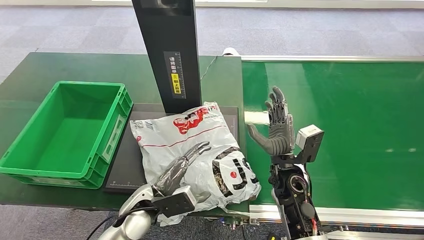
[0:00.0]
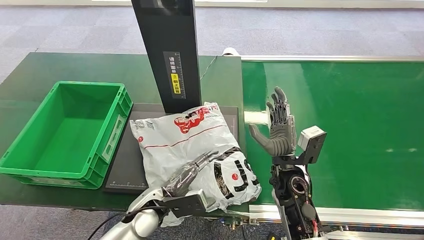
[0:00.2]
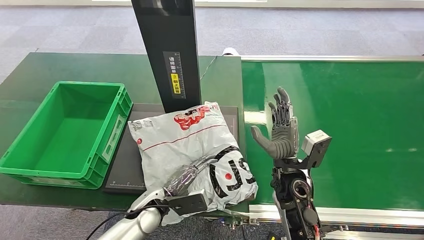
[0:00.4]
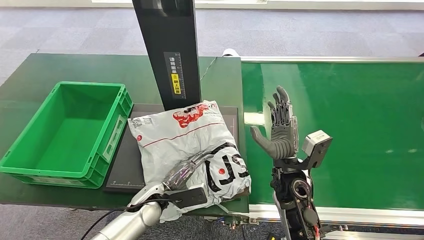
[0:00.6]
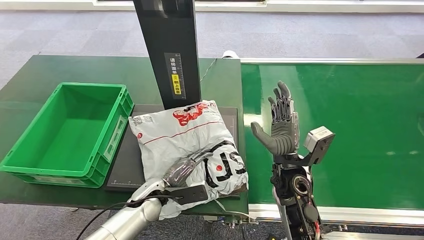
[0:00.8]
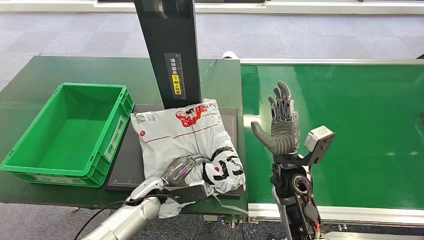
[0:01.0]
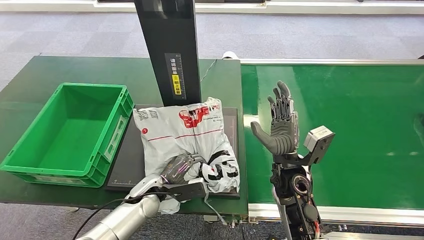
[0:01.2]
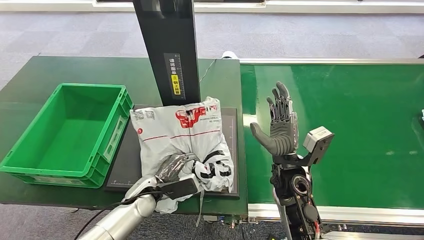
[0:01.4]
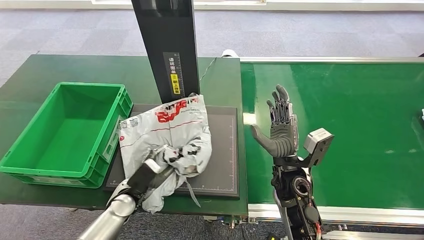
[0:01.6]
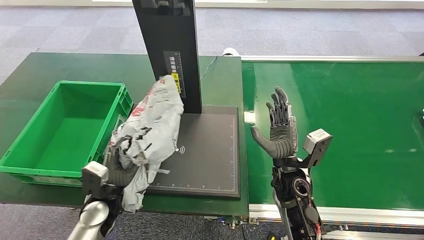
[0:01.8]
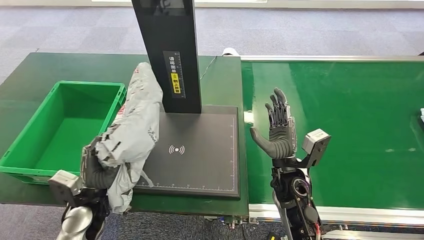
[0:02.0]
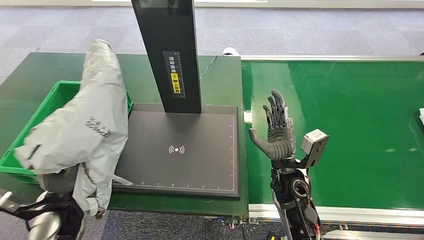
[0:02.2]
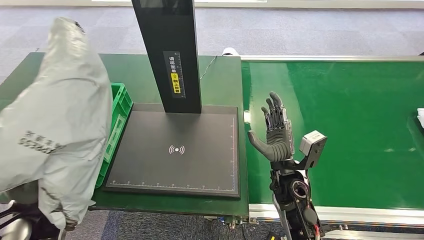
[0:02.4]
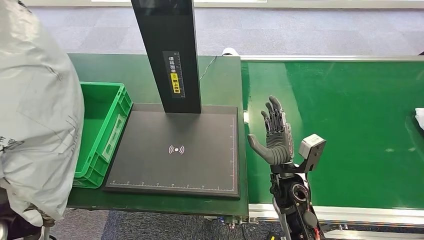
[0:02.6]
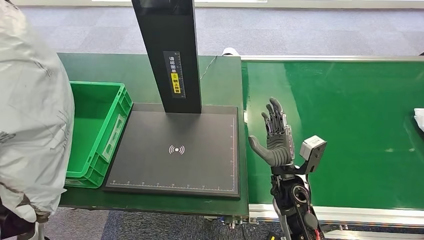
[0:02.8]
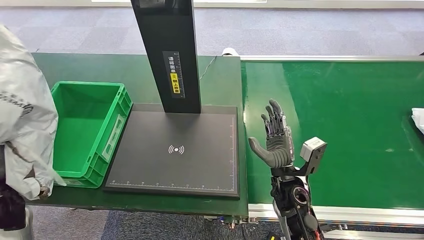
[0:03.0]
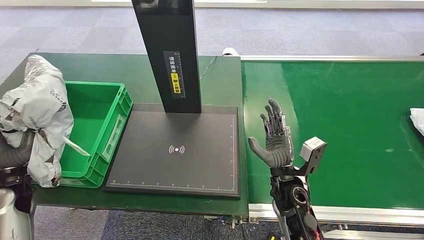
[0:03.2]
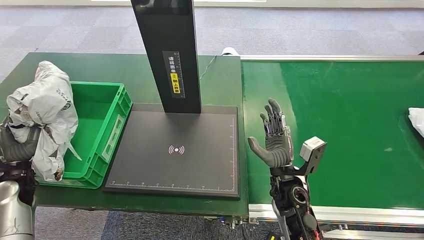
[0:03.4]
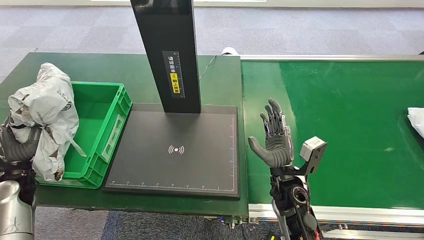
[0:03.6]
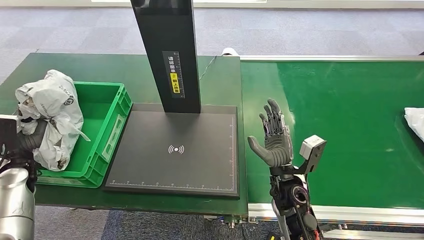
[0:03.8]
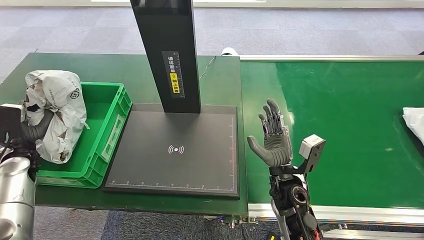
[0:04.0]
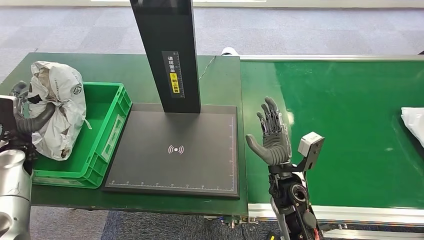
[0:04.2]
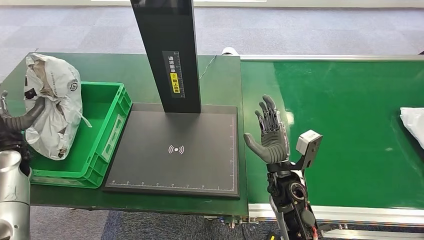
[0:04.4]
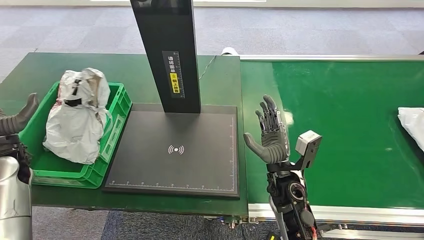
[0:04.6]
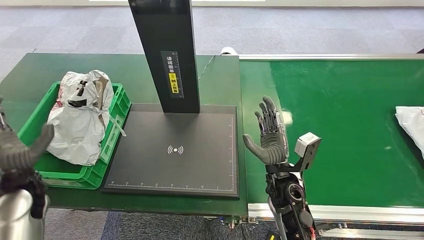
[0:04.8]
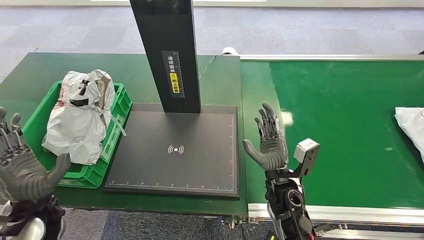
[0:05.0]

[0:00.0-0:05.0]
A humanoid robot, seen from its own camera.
0:03.4 to 0:05.0: The left hand goes approximately 15 cm to the right and backward.
